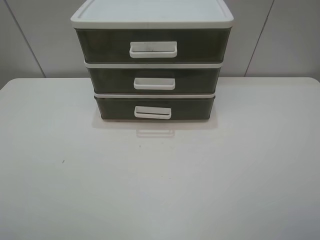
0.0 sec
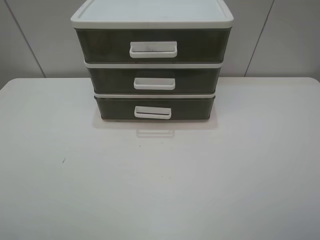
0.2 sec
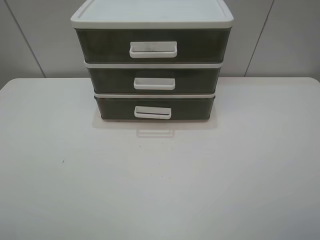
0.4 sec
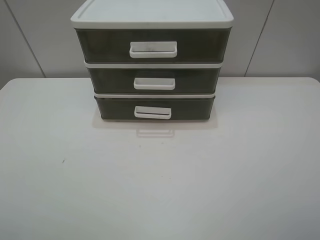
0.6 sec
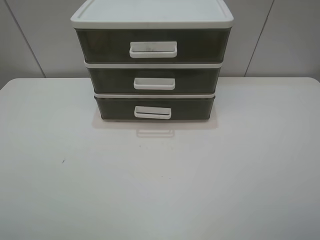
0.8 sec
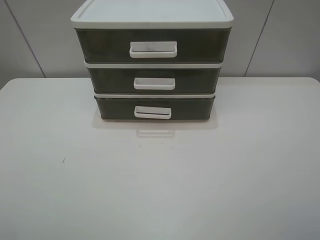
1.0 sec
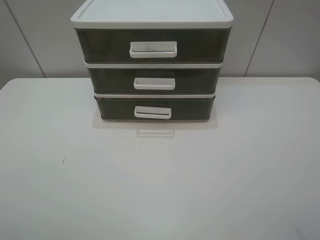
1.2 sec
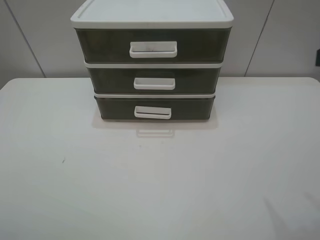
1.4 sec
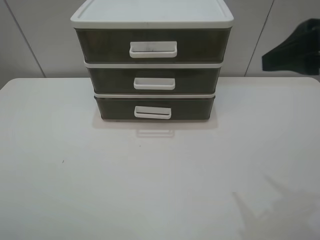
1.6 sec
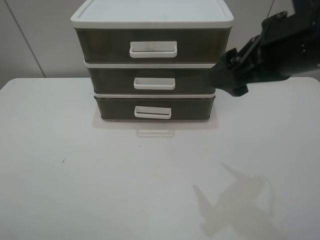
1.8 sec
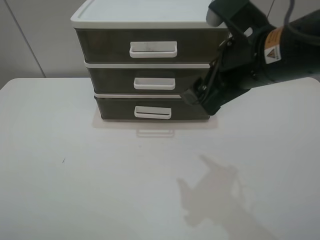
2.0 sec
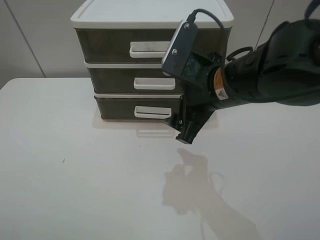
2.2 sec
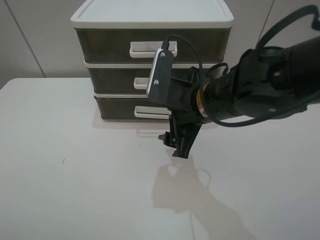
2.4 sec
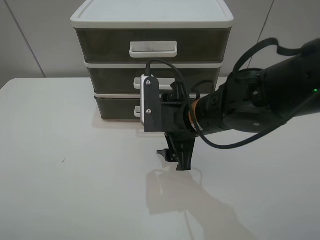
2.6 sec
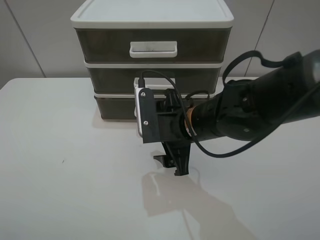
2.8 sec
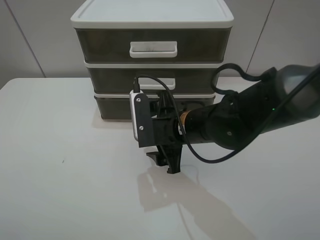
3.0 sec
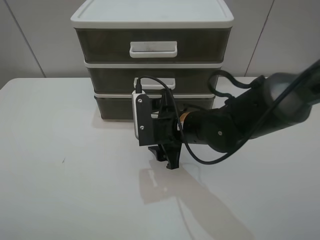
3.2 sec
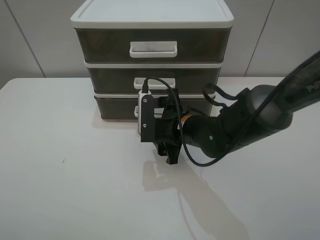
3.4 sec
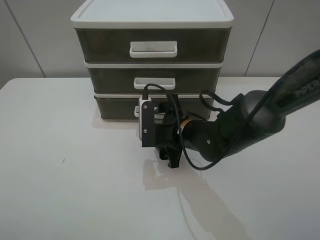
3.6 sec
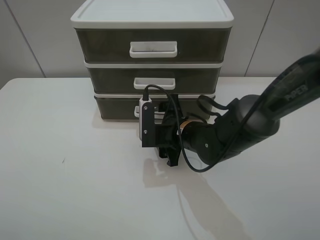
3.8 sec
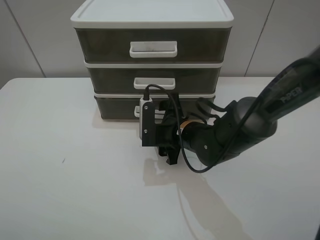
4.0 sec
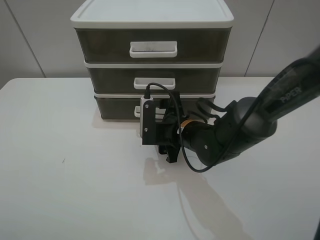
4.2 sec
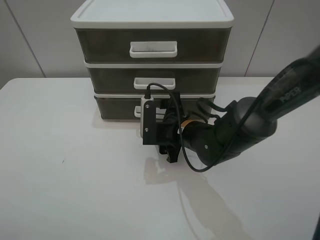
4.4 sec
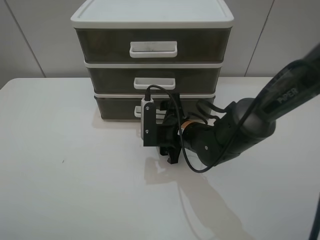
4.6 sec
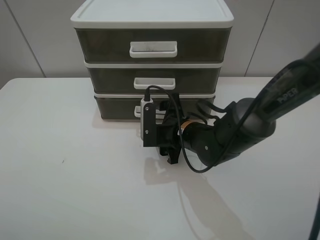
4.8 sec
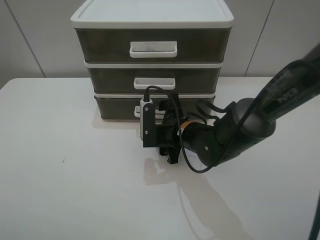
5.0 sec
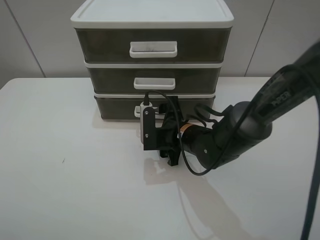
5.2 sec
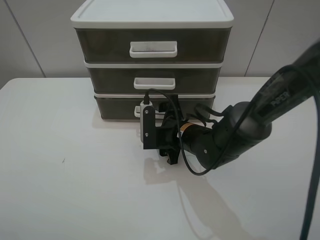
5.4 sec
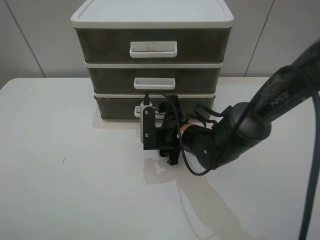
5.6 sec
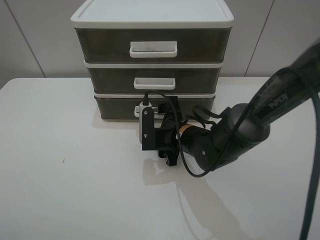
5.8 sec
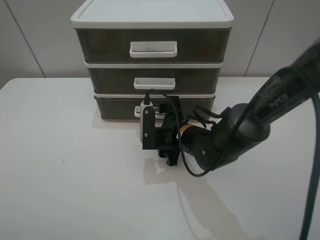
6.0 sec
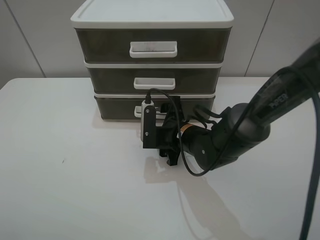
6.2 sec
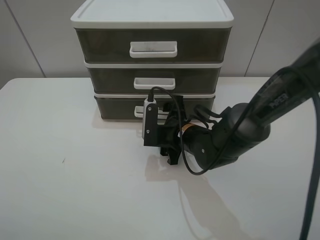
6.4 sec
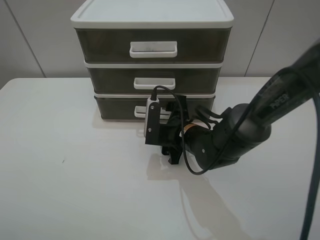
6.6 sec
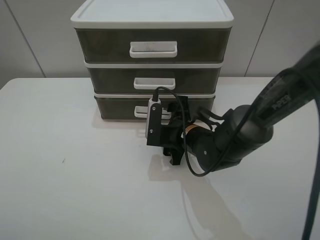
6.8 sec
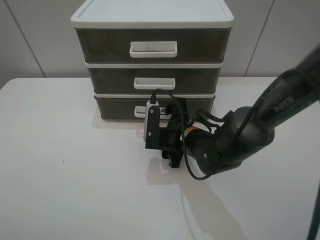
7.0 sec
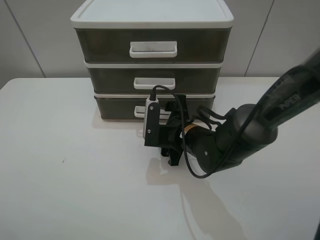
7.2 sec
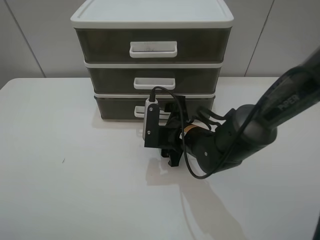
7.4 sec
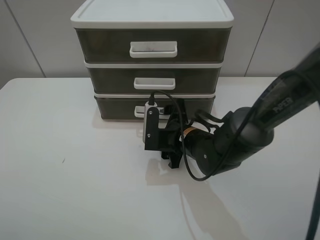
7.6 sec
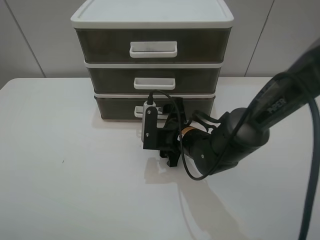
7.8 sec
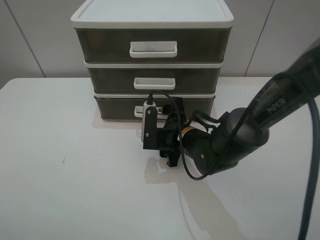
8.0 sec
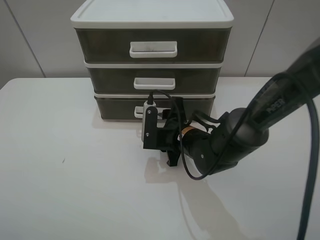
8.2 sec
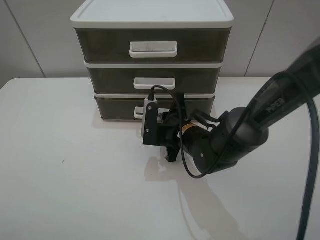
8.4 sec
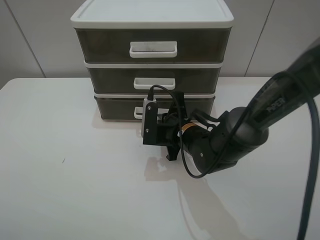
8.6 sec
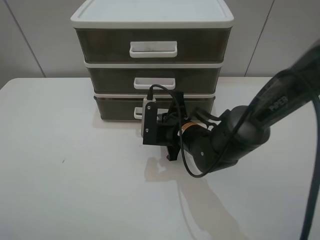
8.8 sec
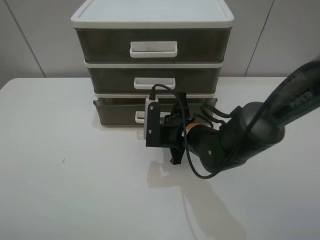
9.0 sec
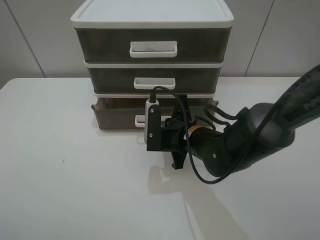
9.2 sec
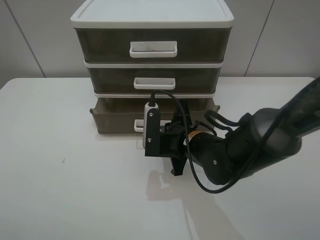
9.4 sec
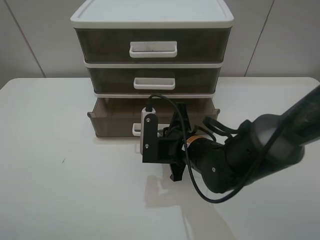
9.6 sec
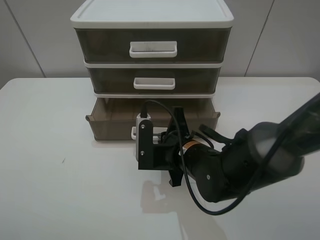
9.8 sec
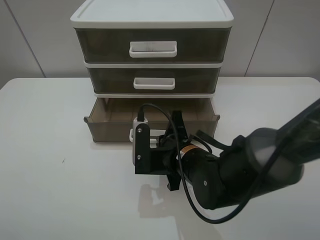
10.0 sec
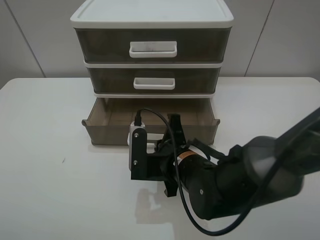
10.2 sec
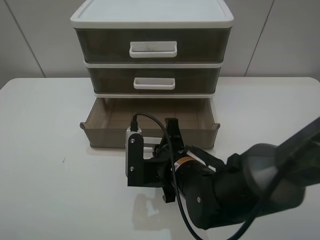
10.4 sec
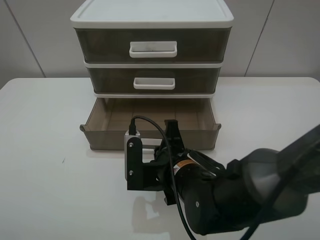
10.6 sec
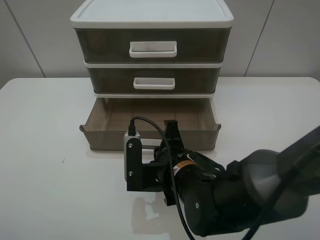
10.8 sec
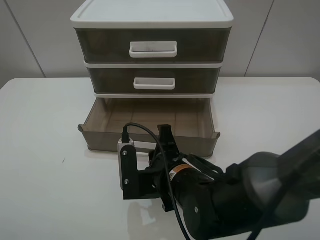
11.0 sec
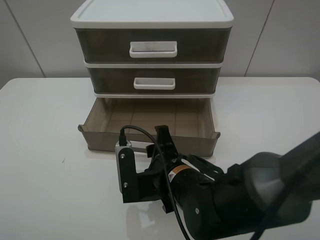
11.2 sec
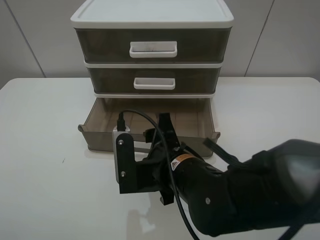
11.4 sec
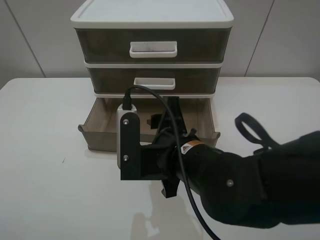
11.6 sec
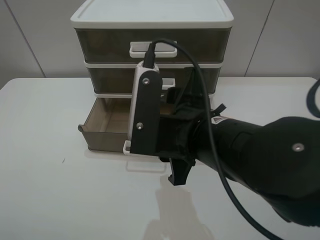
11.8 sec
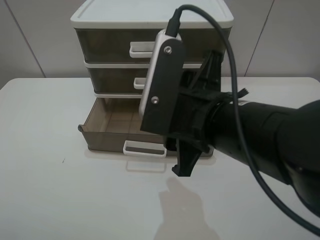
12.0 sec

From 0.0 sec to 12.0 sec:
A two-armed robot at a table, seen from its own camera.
Task of the whole recording: open the bottom drawer.
Step, from 0.0 sec to 8.8 sec: Grab the bottom drawer with the right gripper.
Step, from 9.0 sec to 11.2 sec: Pull open the drawer with the right gripper.
From 0.0 sec to 1.6 sec: The right gripper heads forward, covering about 20 cm.
From 1.6 sec to 3.0 sec: The right gripper moves downward and to the left, some 25 cm.
From 3.0 sec to 4.4 sec: The right gripper moves roughly 5 cm.
From 4.4 sec to 6.0 sec: Both grippers stay about where they are.
From 6.0 sec to 7.6 sec: There are only small adjustments of the grippers.
From 7.6 sec to 9.0 sec: The right gripper closes its fingers.
From 9.0 sec to 10.4 sec: The right gripper shifts about 10 cm backward.
From 10.4 sec to 12.0 sec: The right gripper moves upward, approximately 15 cm, and opens its fingers.

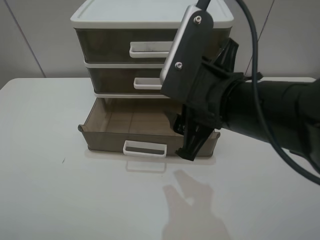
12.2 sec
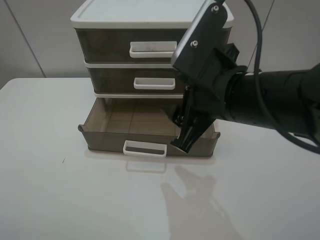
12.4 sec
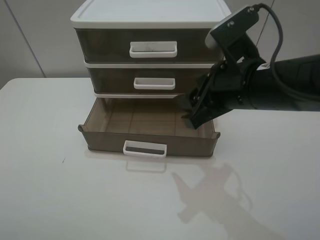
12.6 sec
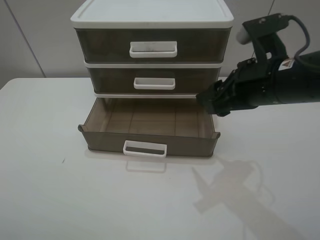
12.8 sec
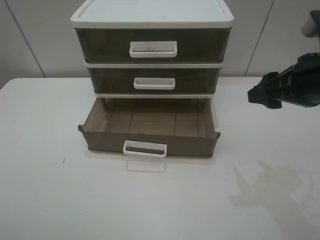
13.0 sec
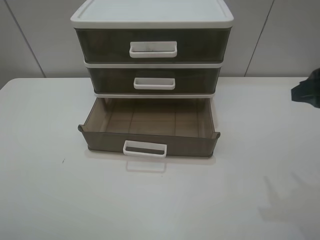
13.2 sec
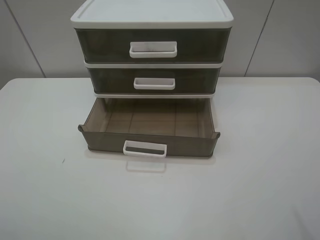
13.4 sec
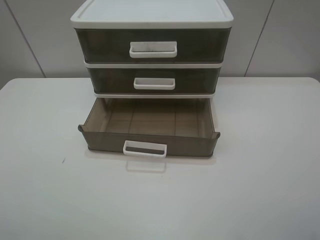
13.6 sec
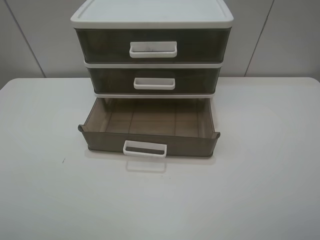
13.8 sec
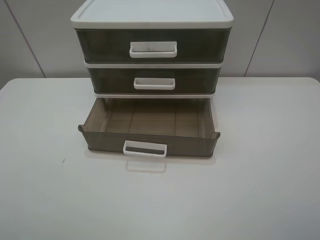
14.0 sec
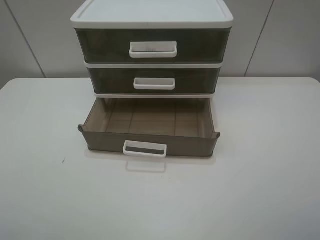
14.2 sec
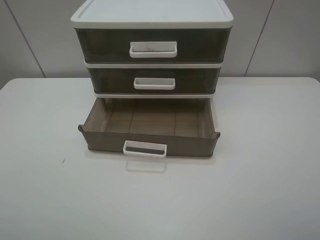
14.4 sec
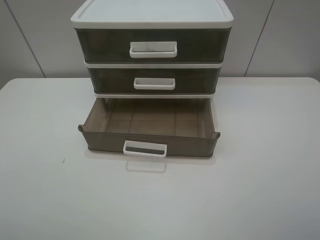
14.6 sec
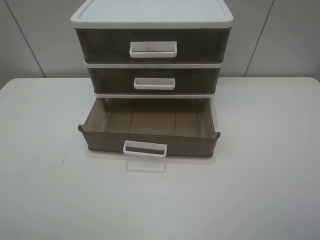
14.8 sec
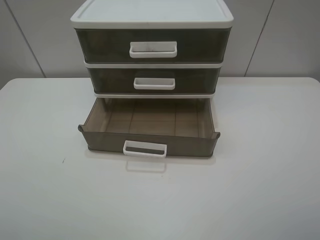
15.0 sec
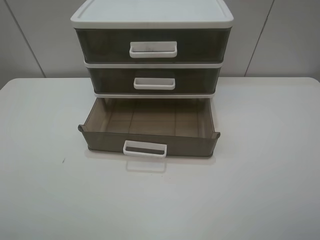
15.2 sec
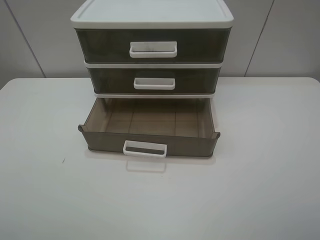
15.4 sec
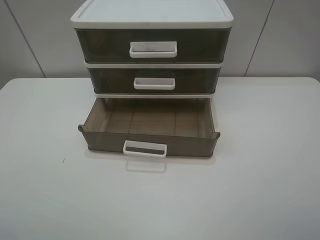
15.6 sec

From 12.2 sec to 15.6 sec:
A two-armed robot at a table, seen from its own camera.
Task of the whole recording: open the bottom drawer.
From 12.2 sec to 13.8 sec: The right gripper travels to the right and backward by roughly 25 cm.
